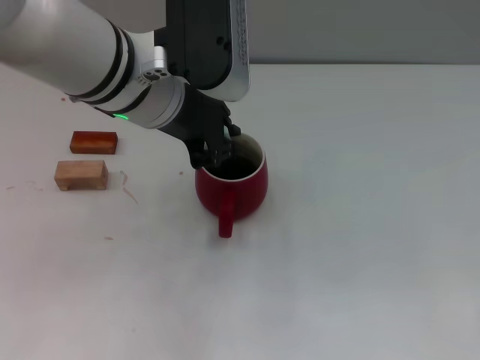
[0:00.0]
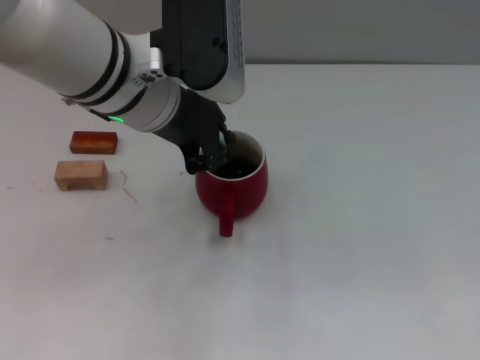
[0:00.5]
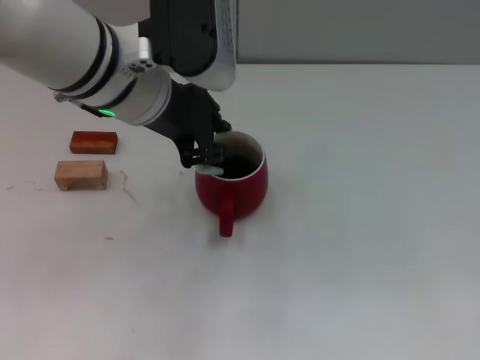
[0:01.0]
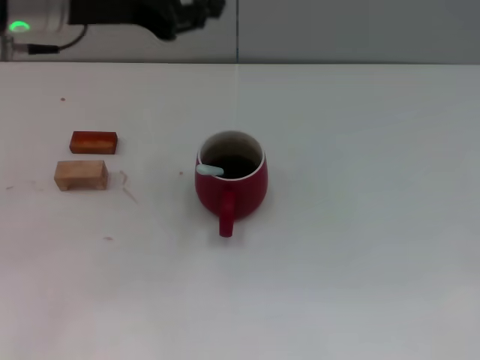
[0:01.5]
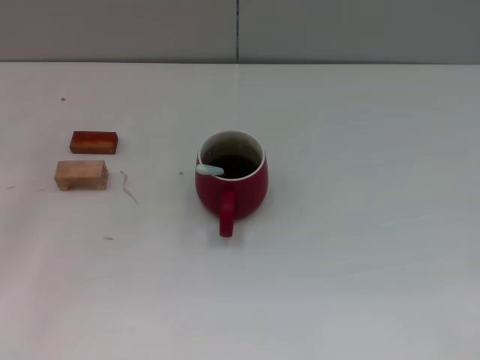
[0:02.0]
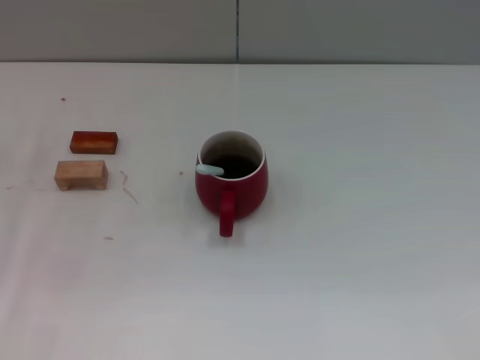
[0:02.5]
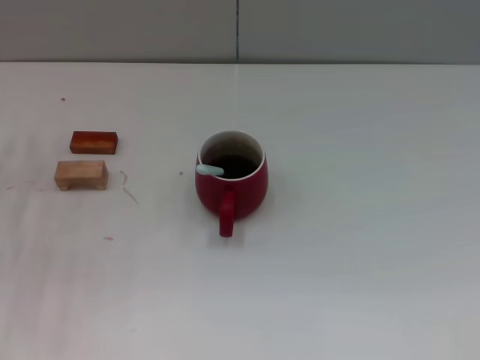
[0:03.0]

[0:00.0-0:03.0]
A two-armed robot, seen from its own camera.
Task of the whole recording: Move the red cup to the center, lift the blue spoon, stir it three times in the cup, and put the spoon into the cup.
0:00.0 to 0:01.5: The left gripper travels to the left by some 10 cm.
0:01.5 to 0:03.0: The left gripper heads downward and to the left, covering roughly 20 cm.
